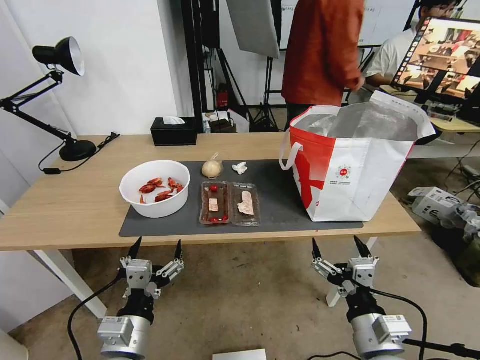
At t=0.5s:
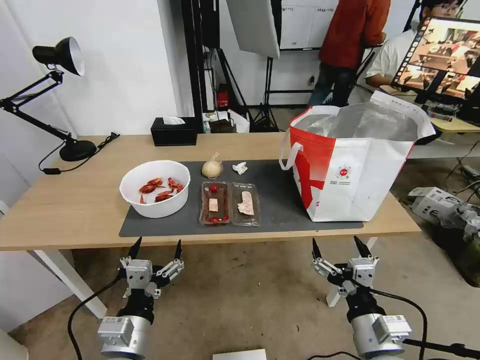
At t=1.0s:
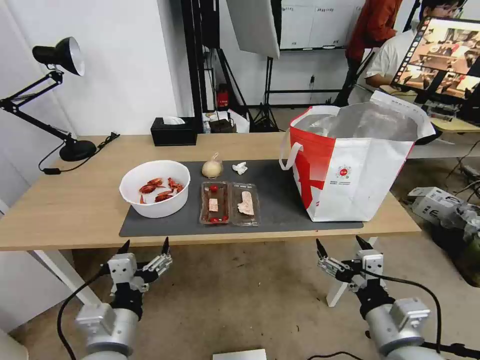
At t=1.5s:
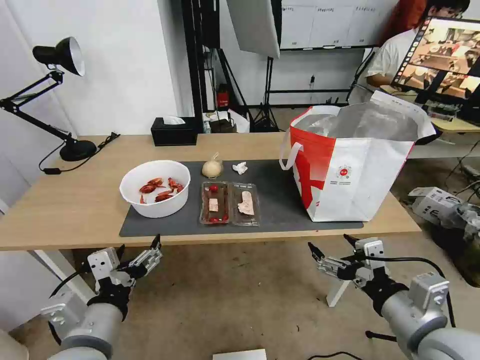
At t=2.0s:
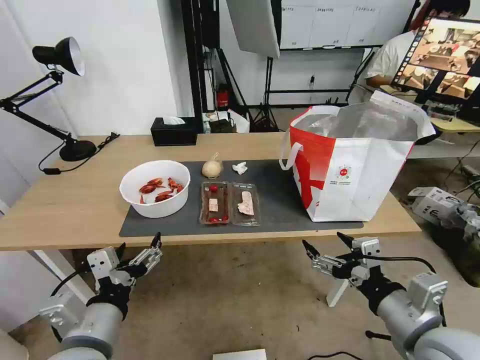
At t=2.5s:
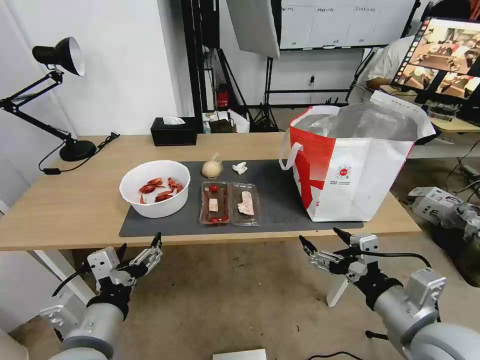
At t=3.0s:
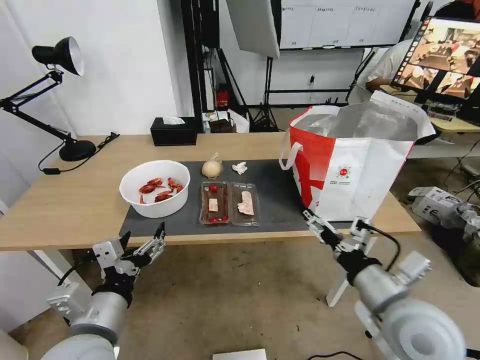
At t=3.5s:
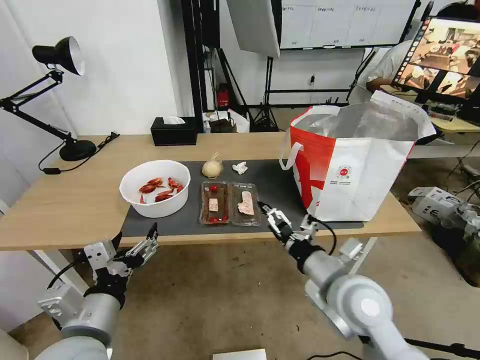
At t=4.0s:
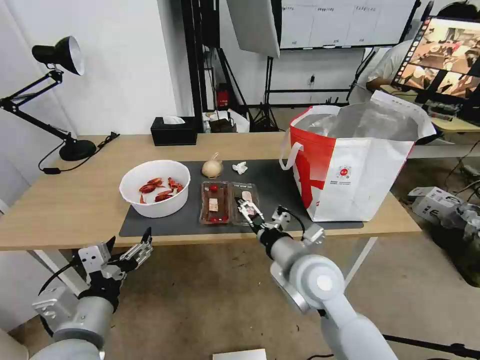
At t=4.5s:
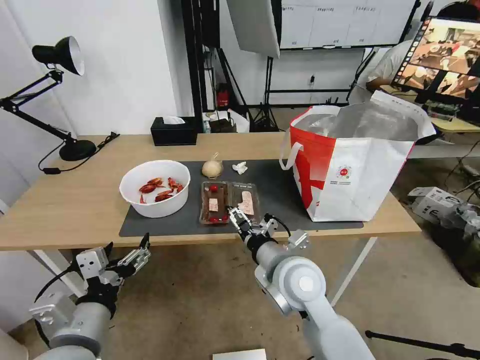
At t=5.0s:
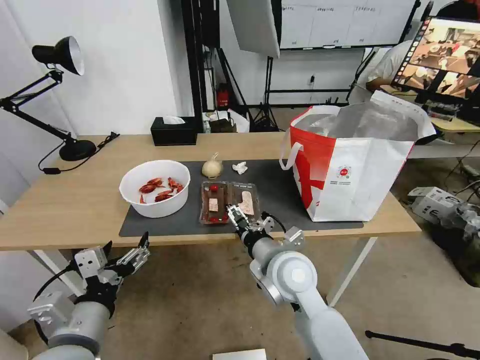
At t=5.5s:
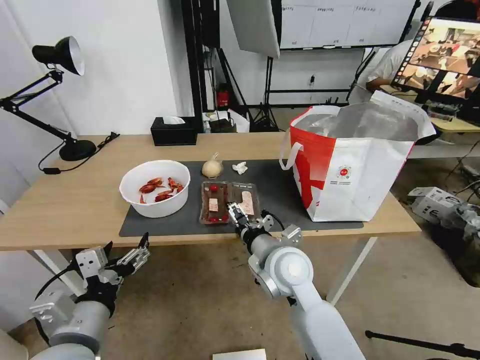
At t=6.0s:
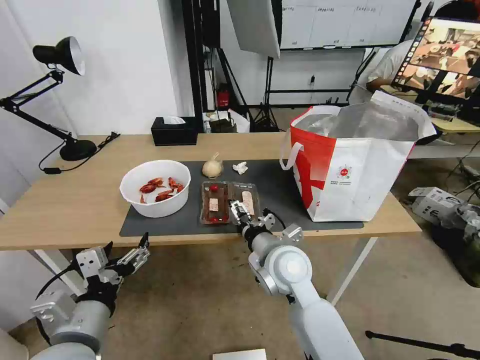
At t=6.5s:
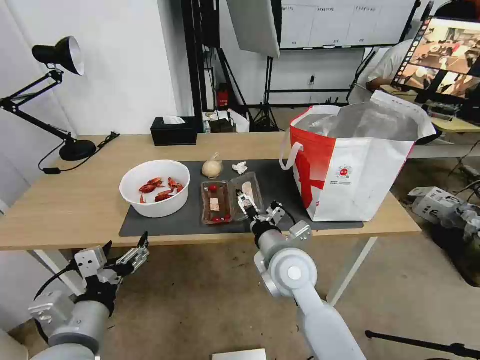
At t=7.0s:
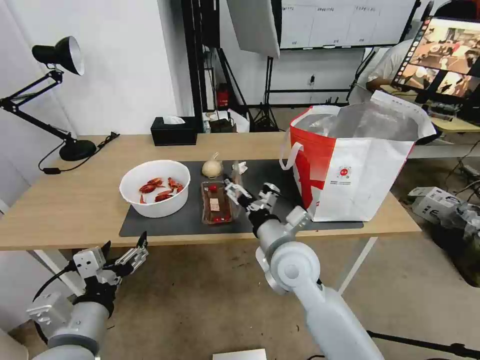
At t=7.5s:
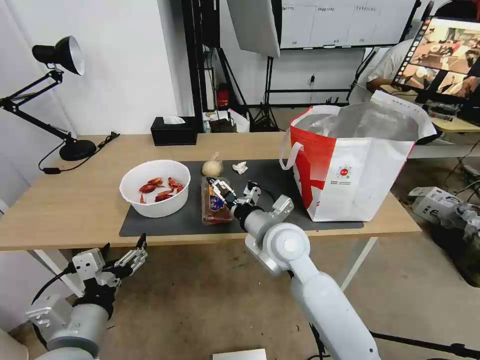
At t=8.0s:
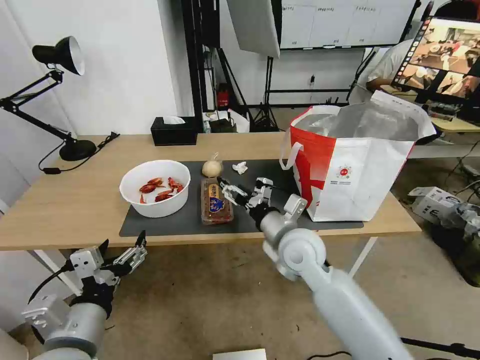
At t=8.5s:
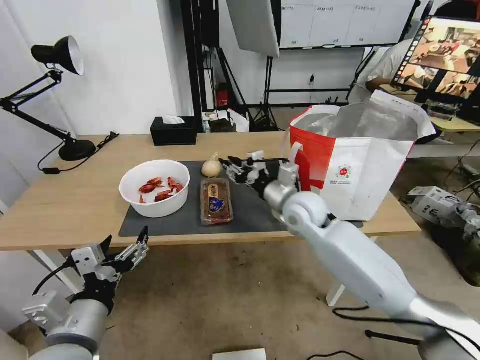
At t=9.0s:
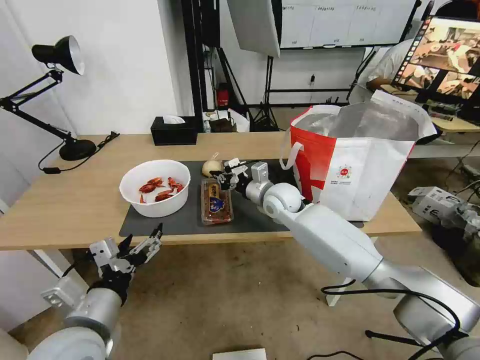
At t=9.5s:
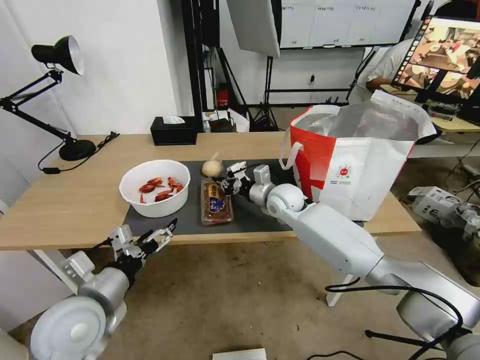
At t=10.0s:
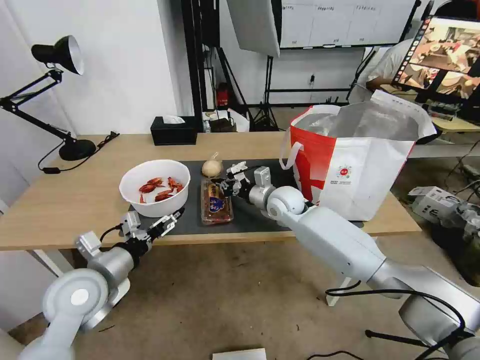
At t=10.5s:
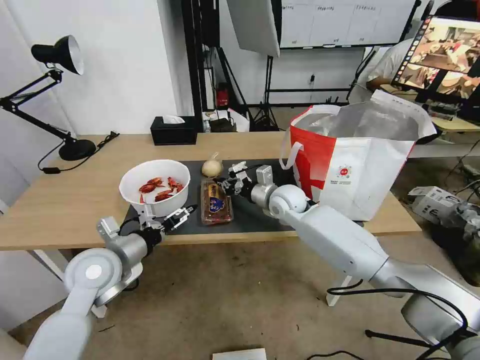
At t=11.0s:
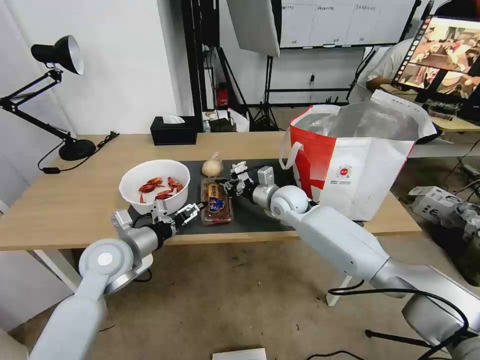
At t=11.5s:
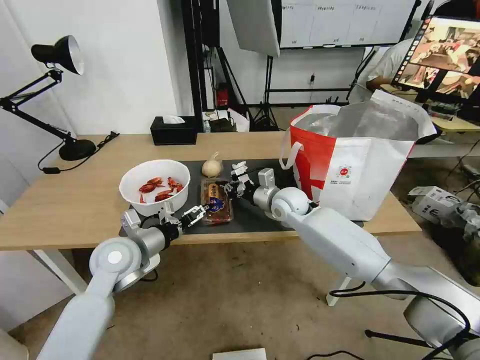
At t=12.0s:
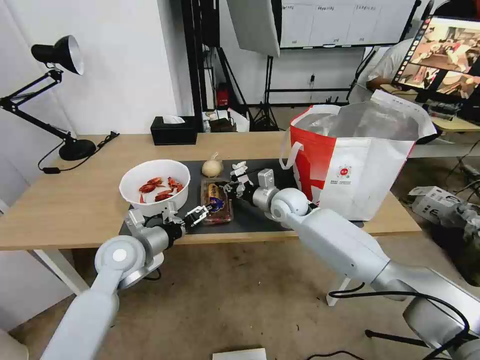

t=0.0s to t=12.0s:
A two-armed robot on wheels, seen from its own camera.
Task of the whole recording: Pick up the trash from the table and place it into the takeout bag.
t=2.0s to t=4.0s: The right gripper is displaced to the left and forward by approximately 20 cm.
t=4.0s to t=6.0s: The right gripper changes place by roughly 5 cm.
t=8.0s to t=10.0s: Both grippers move forward, roughly 15 cm. The right gripper closes up.
t=10.0s to t=12.0s: The left gripper heads forward, covering approximately 10 cm.

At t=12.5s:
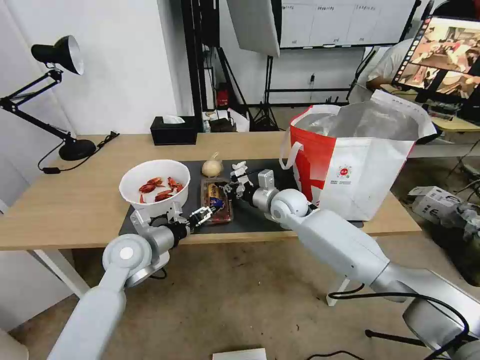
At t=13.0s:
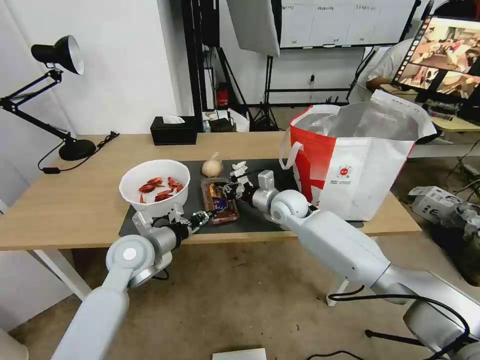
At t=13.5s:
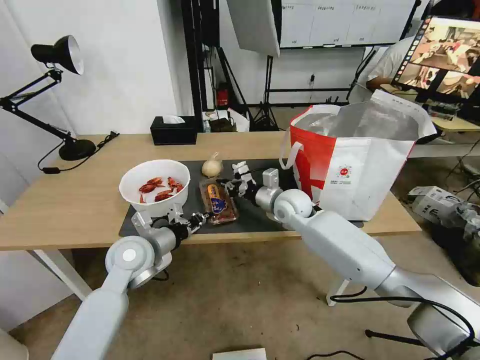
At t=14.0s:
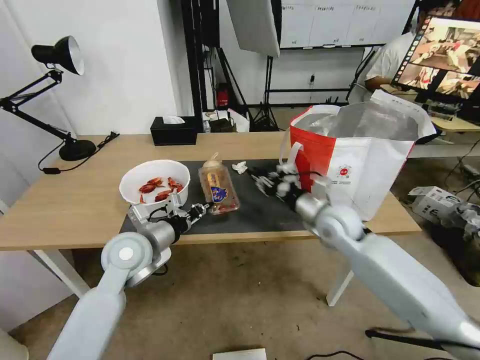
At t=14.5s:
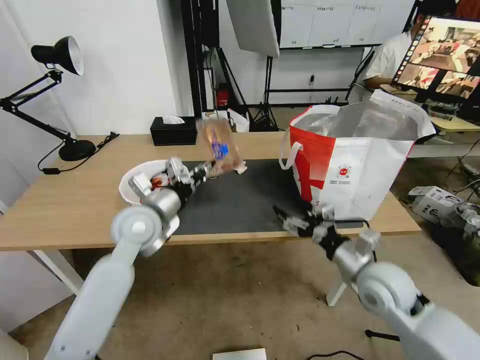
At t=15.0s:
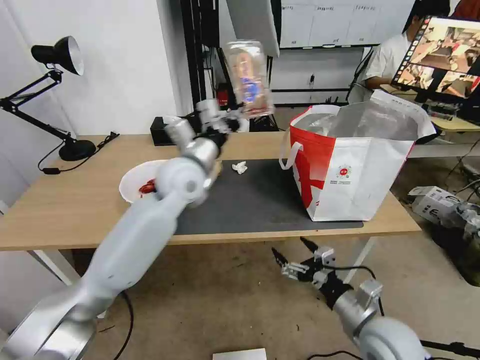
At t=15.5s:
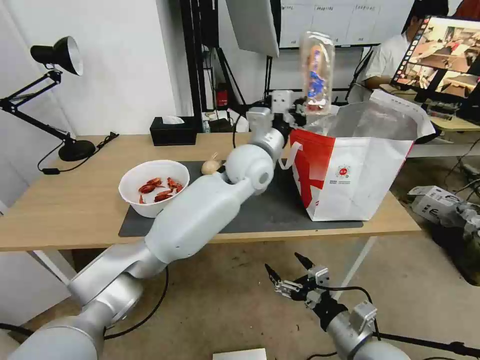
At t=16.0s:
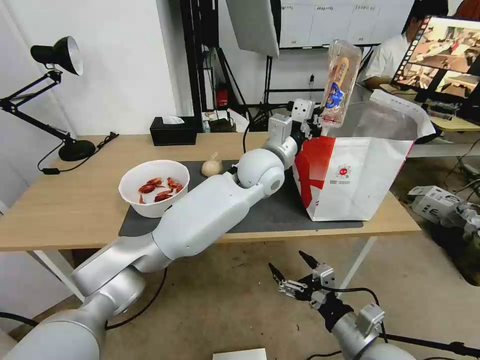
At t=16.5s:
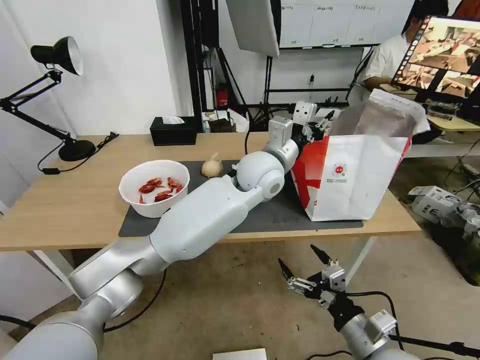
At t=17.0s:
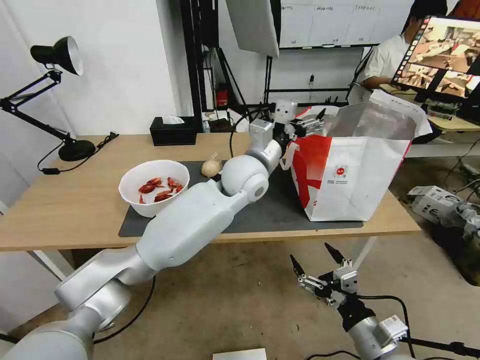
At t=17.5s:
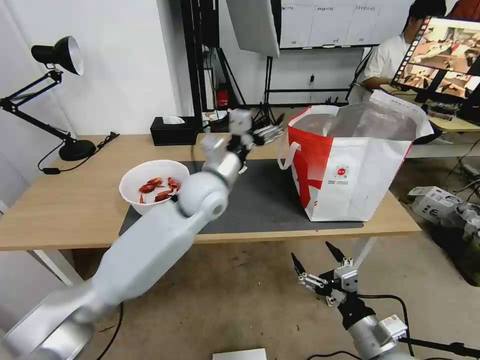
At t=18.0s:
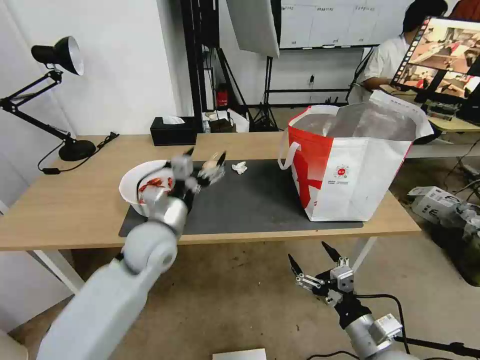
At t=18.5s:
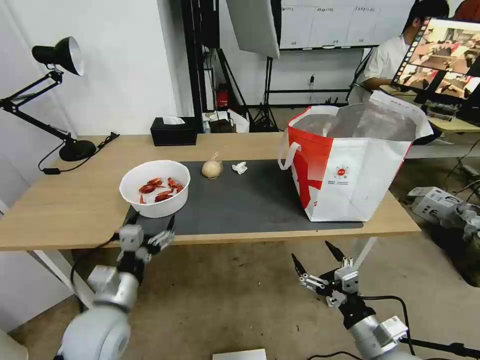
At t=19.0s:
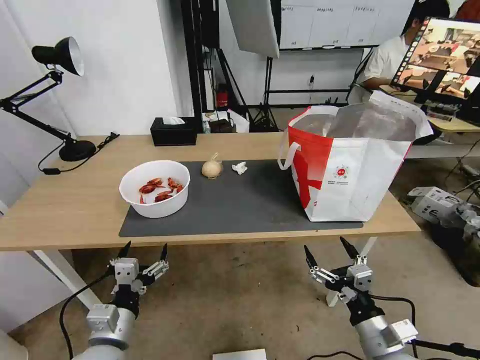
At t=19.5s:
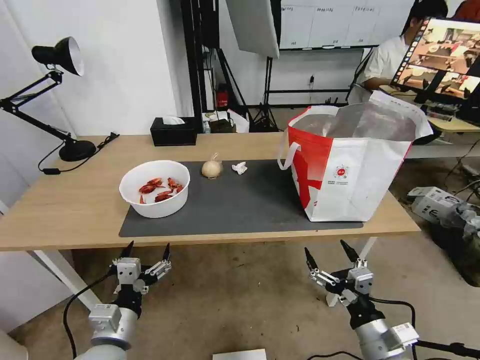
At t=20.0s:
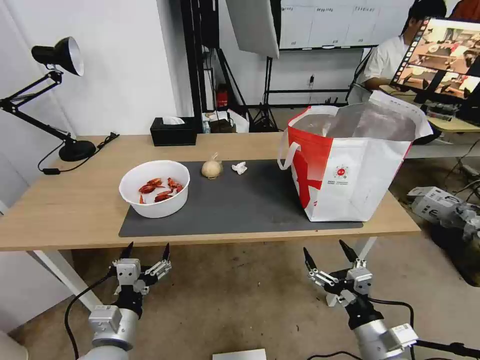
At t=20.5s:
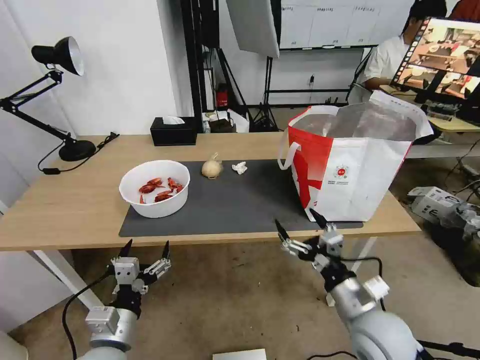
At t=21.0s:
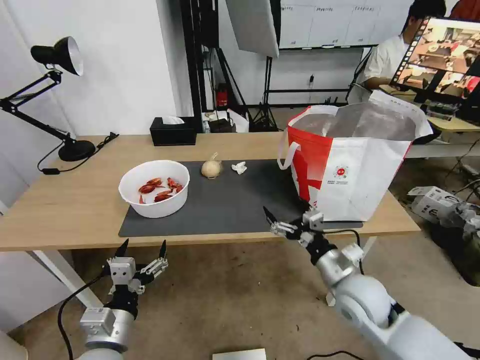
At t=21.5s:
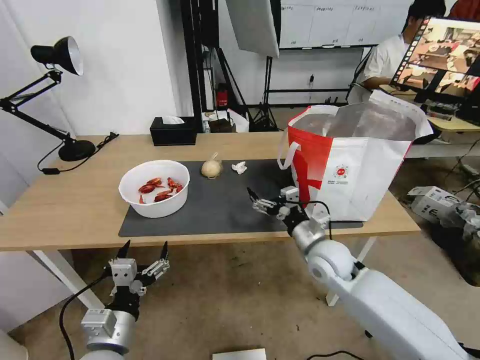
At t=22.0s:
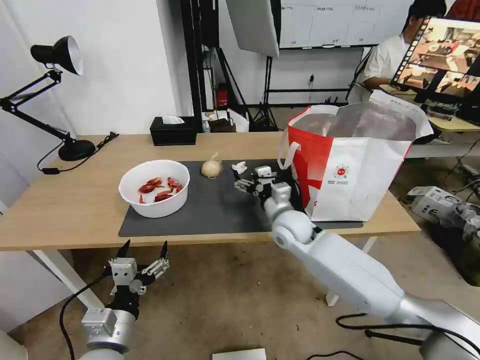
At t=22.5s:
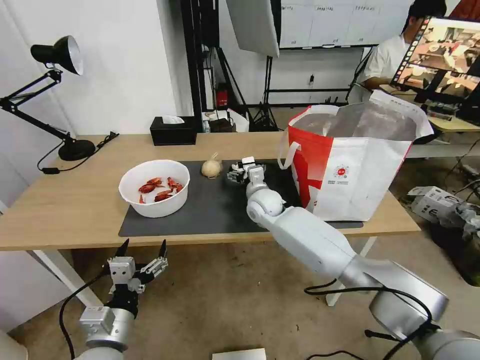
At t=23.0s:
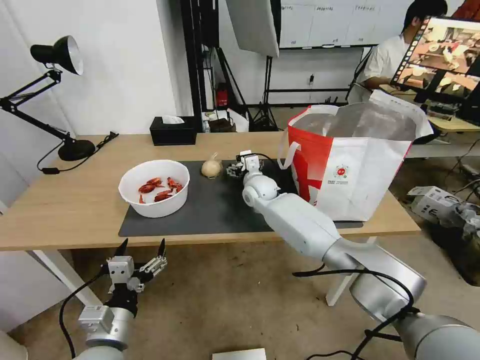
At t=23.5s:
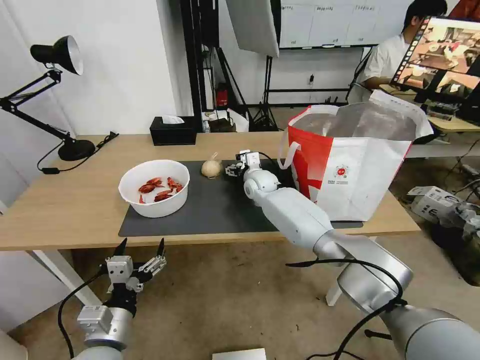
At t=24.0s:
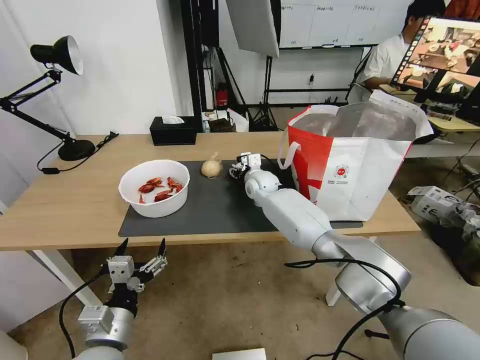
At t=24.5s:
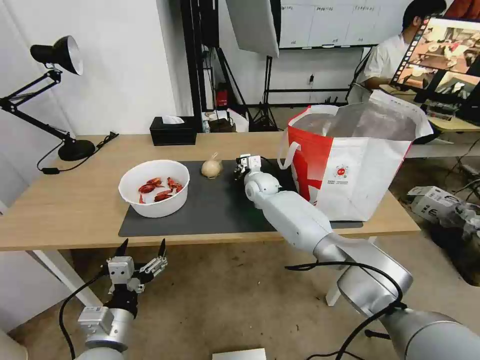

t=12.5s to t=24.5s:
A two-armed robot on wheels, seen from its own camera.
Task of the whole recording: Pick up the trash from the table and place it into the takeout bag.
t=12.5s to t=14.5s: The right gripper moves backward and to the right, roughly 25 cm, and opens up; the left gripper moves upward, roughly 5 cm, and closes.
t=14.5s to t=16.5s: The left gripper shifts some 25 cm to the right, and opens its fingers; the right gripper travels backward by about 15 cm.
t=16.5s to t=18.5s: The left gripper is displaced to the left, backward and downward by roughly 40 cm, and opens.
t=18.5s to t=20.5s: The right gripper goes roughly 5 cm forward, while the left gripper travels backward by roughly 5 cm.
t=20.5s to t=22.5s: The right gripper travels forward and to the left by some 35 cm.
t=22.5s to t=24.5s: The right gripper is displaced forward by roughly 10 cm, and closes its fingers.

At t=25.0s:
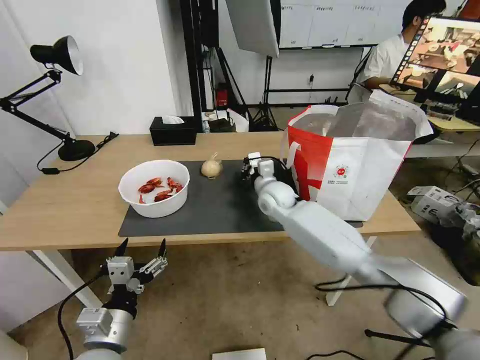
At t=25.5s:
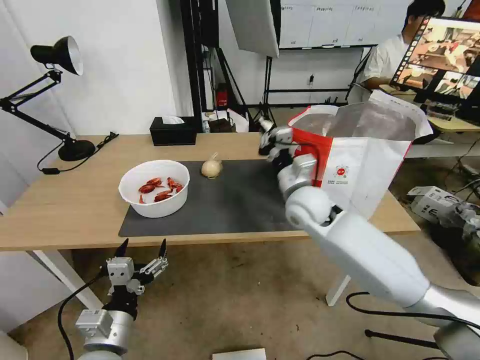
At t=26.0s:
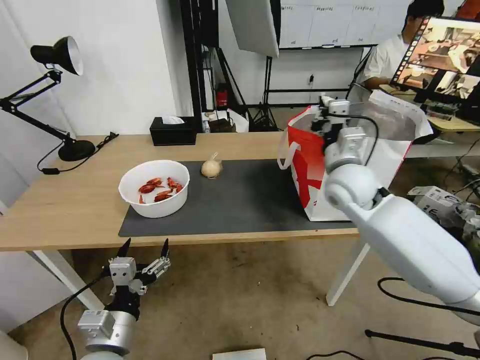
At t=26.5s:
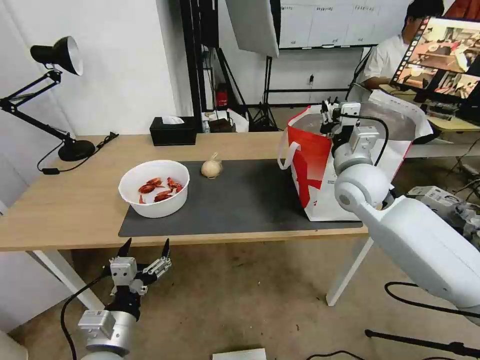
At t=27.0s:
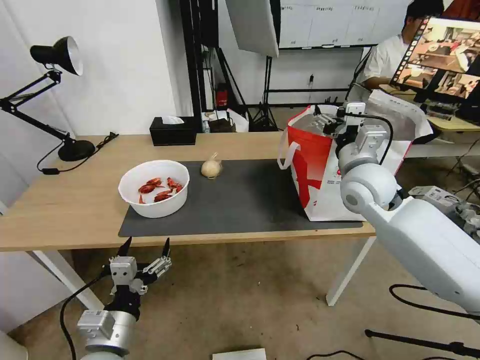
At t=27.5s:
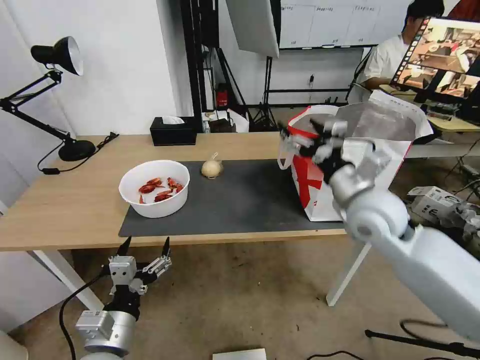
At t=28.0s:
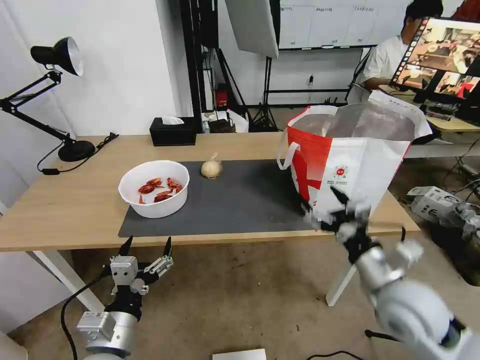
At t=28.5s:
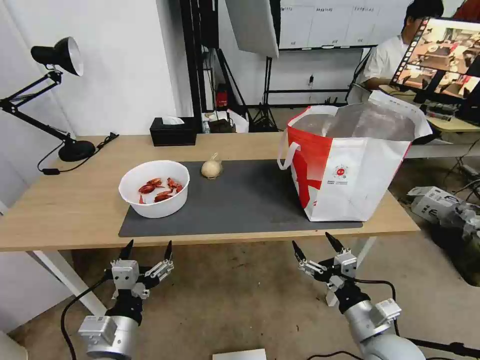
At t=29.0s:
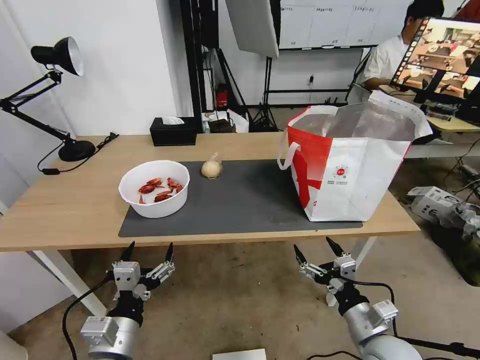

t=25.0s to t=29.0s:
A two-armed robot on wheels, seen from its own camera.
Task of the whole recording: Pick up the trash from the table and place it into the takeout bag.
t=25.0s to t=27.0s: The right gripper moves to the right, upward and backward, roughly 25 cm, and opens up.
t=27.0s to t=29.0s: The right gripper goes approximately 35 cm backward and downward.
